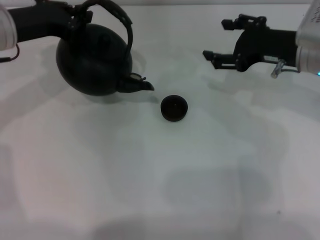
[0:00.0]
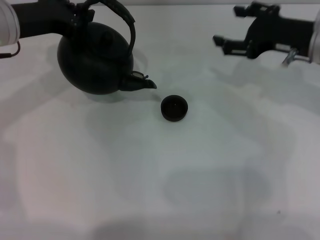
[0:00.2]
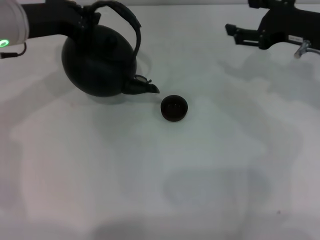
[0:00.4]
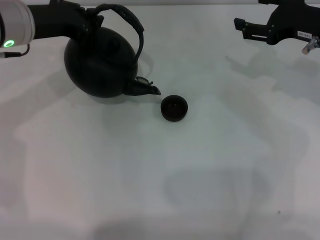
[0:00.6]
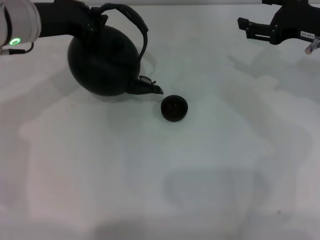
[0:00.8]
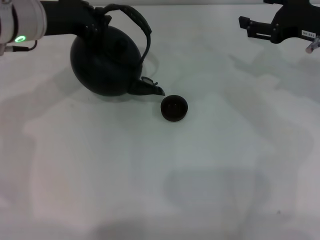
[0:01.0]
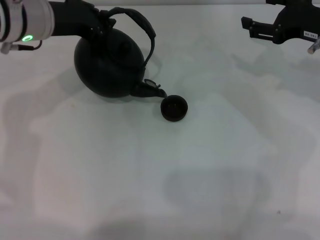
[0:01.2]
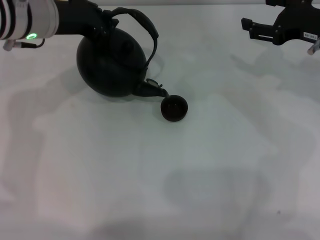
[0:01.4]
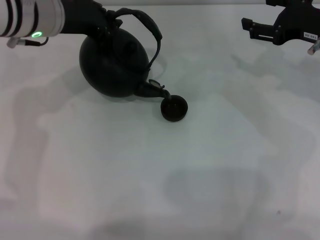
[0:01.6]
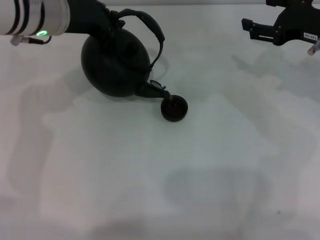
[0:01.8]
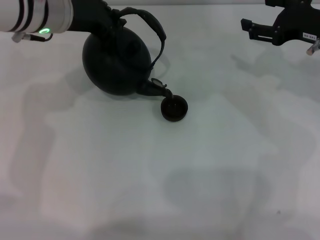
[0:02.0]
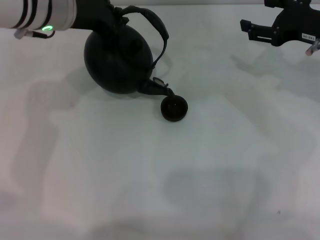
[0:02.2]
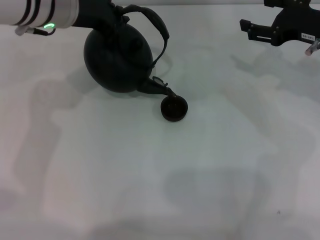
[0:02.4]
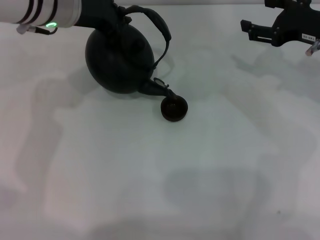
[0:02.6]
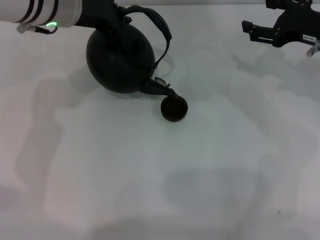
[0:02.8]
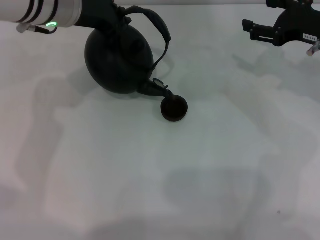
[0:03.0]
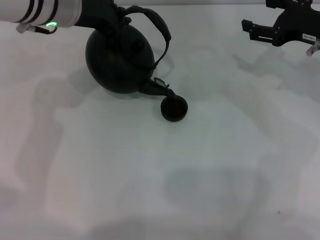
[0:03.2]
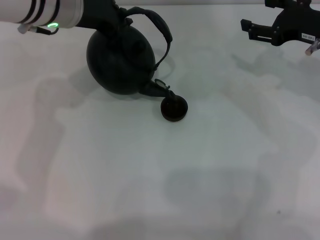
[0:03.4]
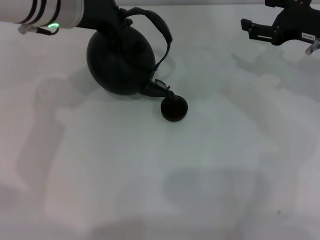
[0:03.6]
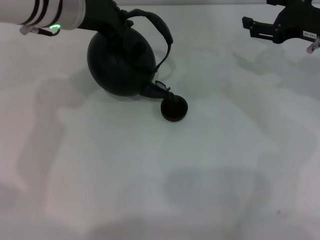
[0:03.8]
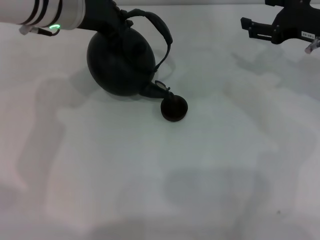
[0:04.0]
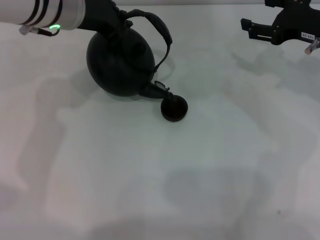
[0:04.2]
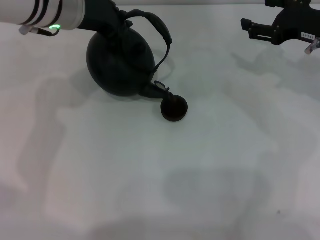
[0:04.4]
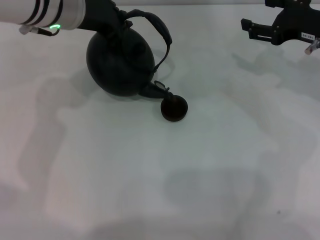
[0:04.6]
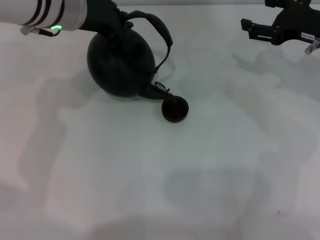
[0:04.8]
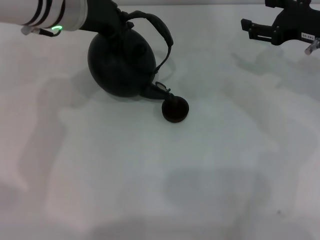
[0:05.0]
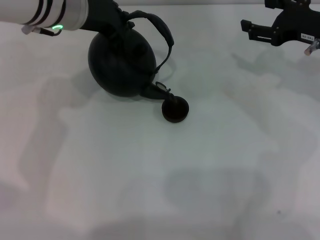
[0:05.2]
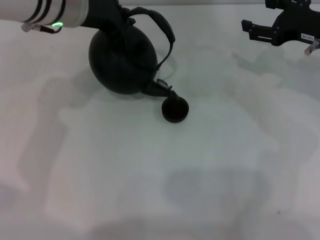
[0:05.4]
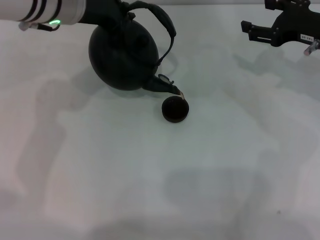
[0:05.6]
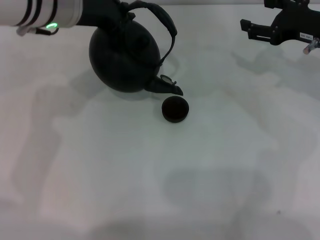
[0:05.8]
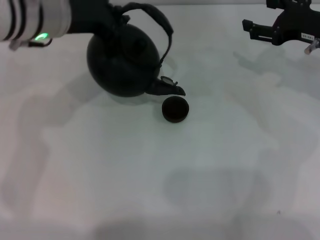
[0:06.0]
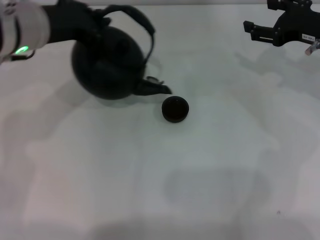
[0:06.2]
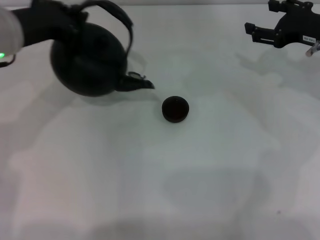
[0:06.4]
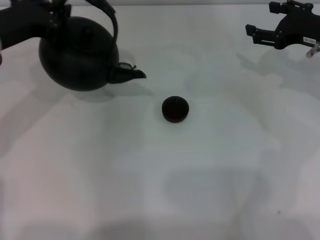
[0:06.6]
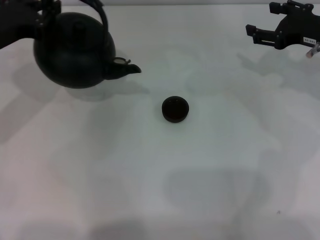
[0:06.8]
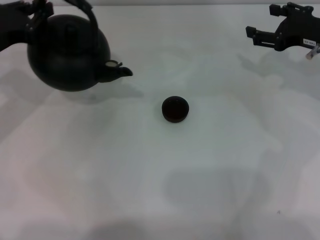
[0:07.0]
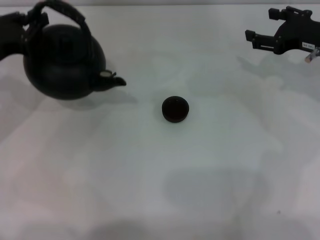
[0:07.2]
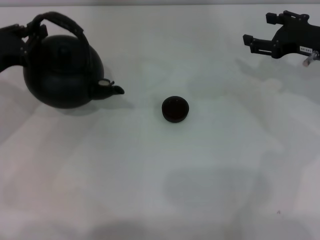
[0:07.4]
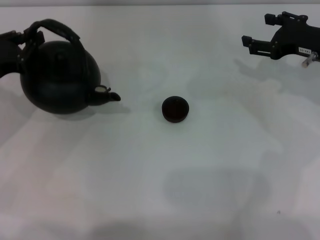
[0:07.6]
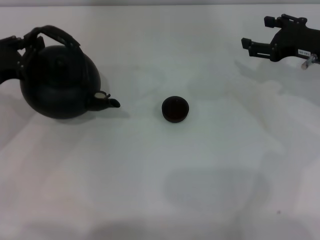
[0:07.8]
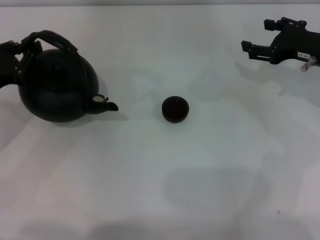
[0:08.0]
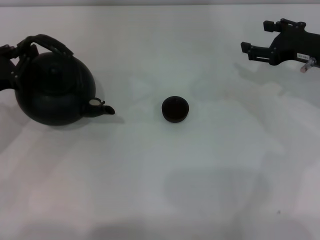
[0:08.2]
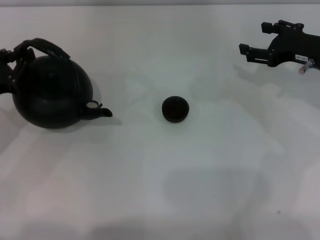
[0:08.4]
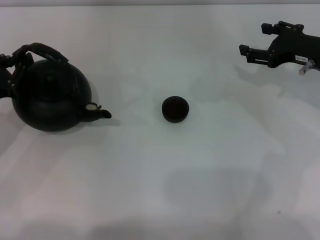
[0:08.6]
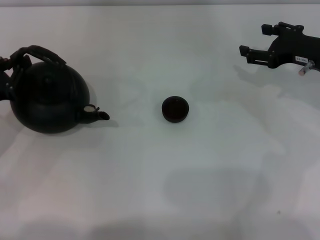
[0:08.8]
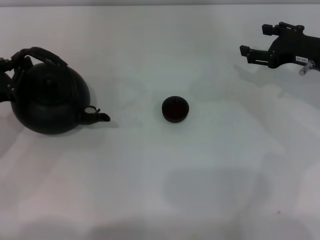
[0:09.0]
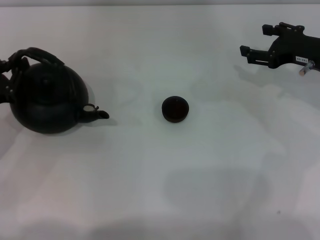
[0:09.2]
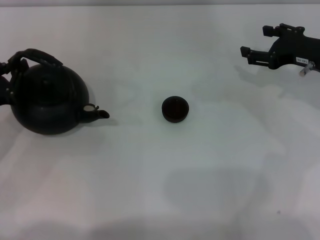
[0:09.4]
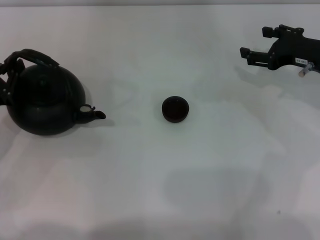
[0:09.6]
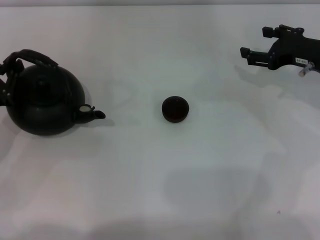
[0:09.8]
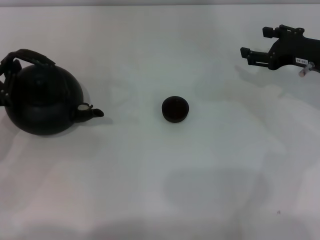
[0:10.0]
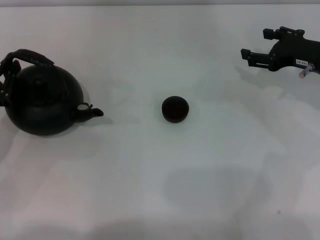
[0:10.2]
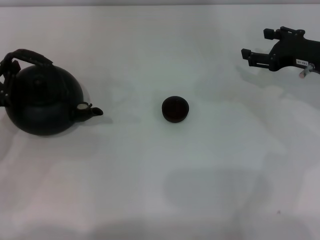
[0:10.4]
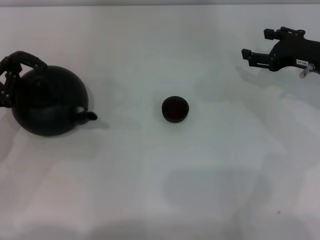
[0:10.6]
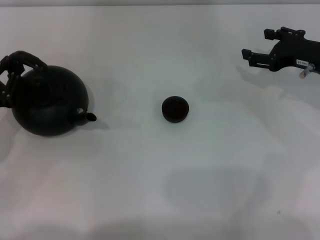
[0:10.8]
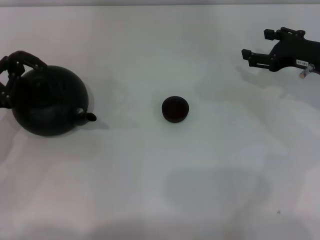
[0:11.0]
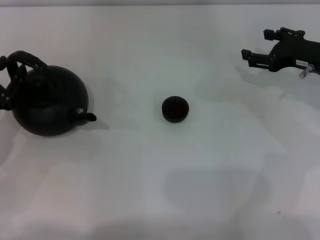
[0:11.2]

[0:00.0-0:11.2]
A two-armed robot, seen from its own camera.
Task of the whole recording: Grasp the handle of the teapot with one hand and pour tea into the teacup.
Step, 0:01.0 to 0:06.0: Pour tea into the teacup with the left gripper.
0:00.0 to 0:01.6: Both grippers travel together to the right, about 5 cm.
0:01.6 to 0:03.2: The grippers stay close to where they were, moving slightly.
0:03.2 to 0:04.8: Both grippers stay about where they are.
0:04.8 to 0:06.4: The left gripper is displaced to the left and backward by roughly 10 cm.
0:06.4 to 0:08.0: The left gripper shifts some 15 cm downward, to the left and backward.
0:08.0 to 0:09.6: The grippers make only small movements.
0:09.6 to 0:11.2: Neither gripper changes place.

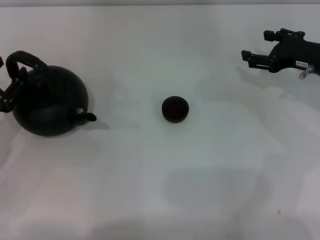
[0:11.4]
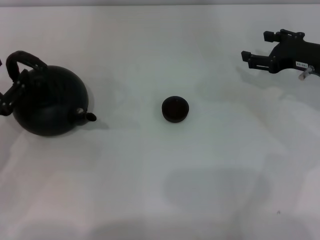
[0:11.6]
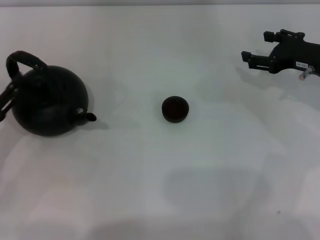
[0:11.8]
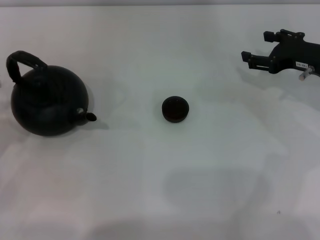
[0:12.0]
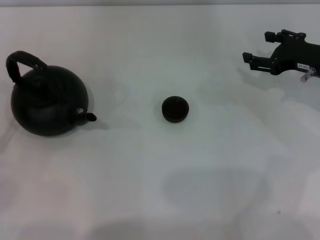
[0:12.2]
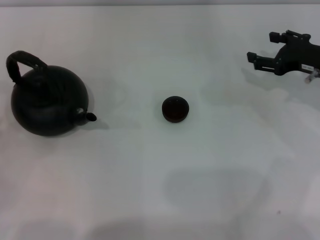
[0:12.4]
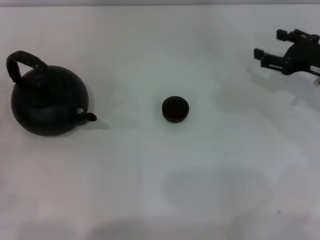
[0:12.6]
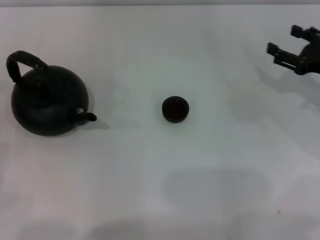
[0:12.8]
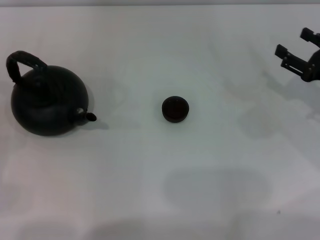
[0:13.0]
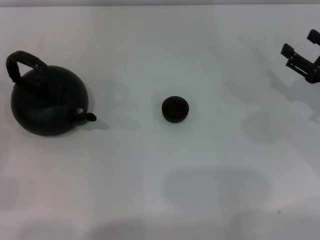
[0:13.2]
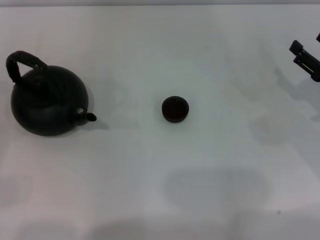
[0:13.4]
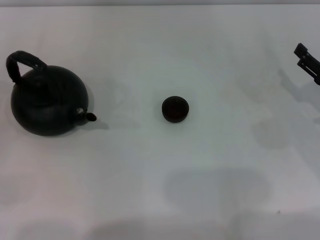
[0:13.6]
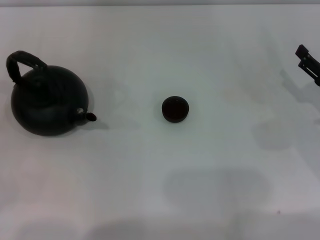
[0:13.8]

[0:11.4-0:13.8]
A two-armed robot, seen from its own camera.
Task of the whole recording: Grasp the handle of the teapot with one hand and pour tea into the teacup.
0:11.4 to 0:12.6: The left gripper shifts roughly 10 cm backward and to the left, and opens its fingers.
0:12.6 to 0:13.8: The right gripper shifts about 5 cm backward.

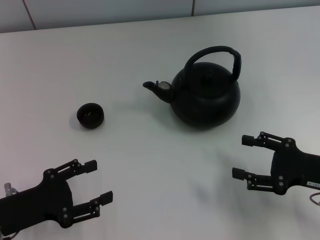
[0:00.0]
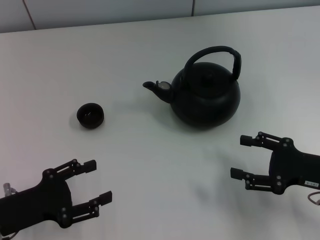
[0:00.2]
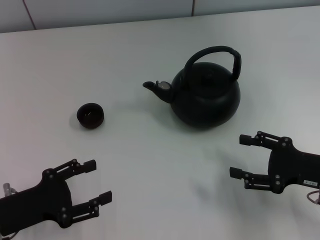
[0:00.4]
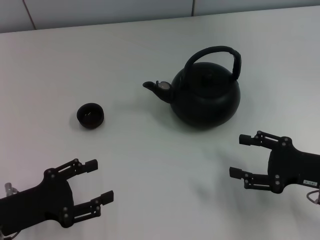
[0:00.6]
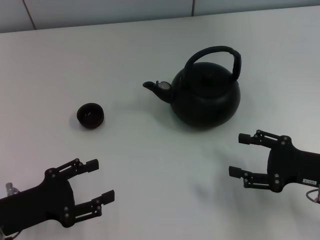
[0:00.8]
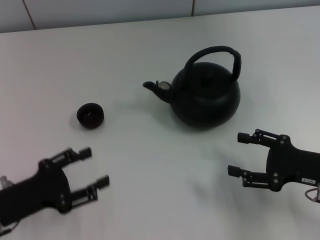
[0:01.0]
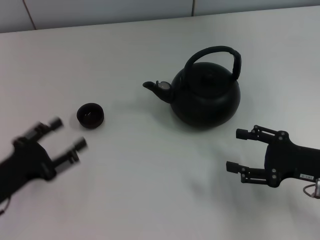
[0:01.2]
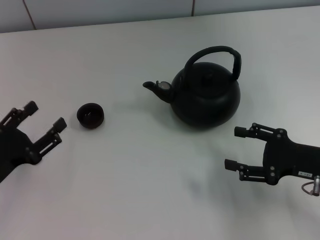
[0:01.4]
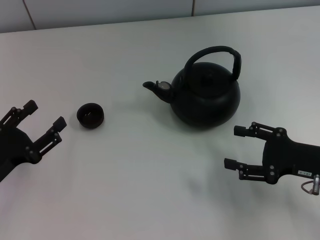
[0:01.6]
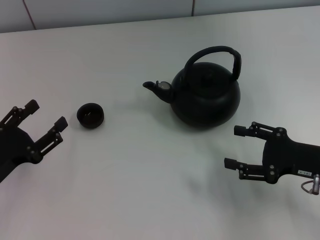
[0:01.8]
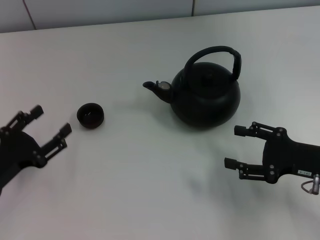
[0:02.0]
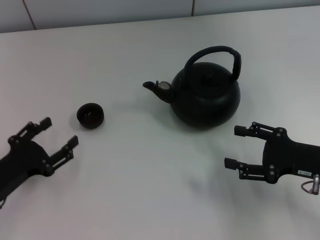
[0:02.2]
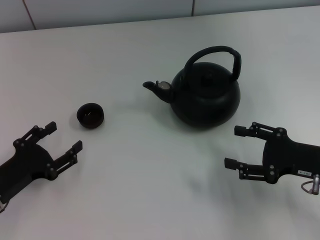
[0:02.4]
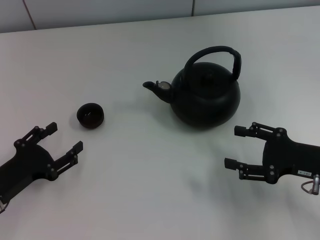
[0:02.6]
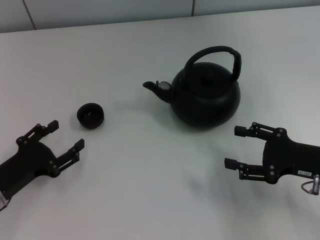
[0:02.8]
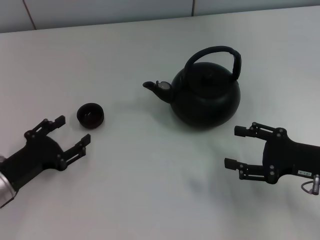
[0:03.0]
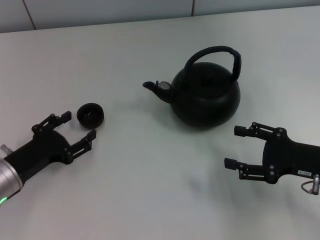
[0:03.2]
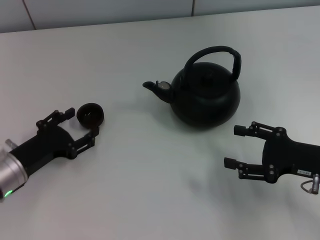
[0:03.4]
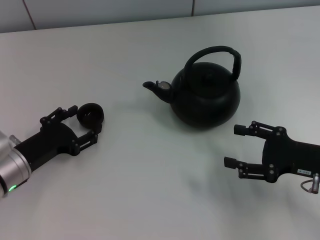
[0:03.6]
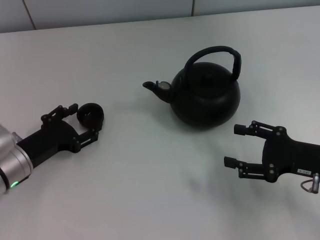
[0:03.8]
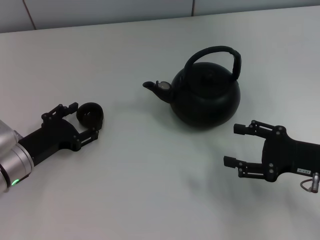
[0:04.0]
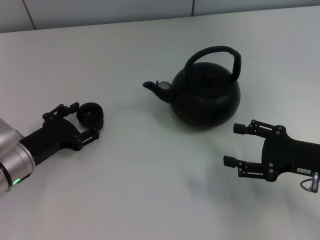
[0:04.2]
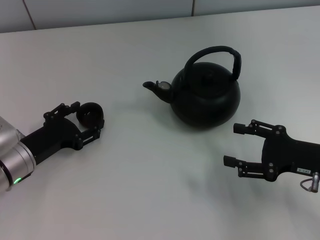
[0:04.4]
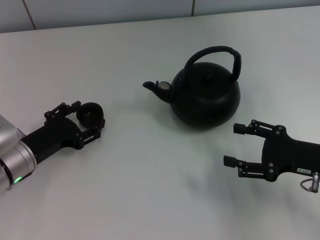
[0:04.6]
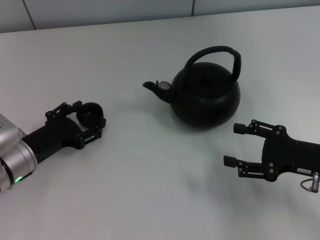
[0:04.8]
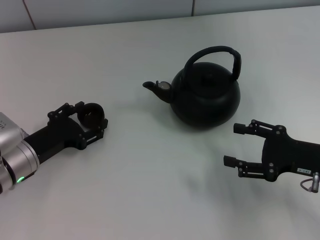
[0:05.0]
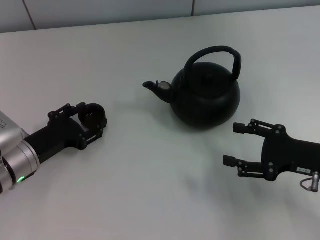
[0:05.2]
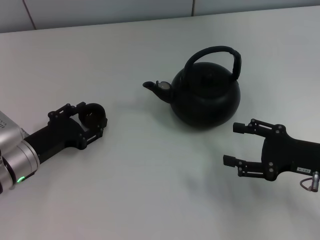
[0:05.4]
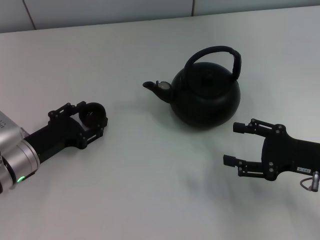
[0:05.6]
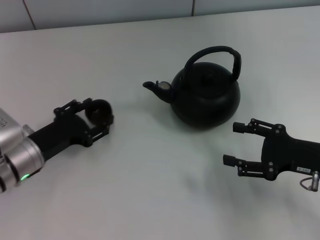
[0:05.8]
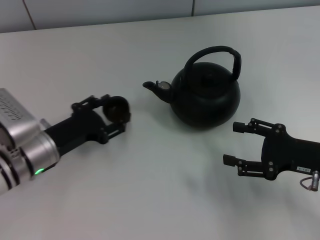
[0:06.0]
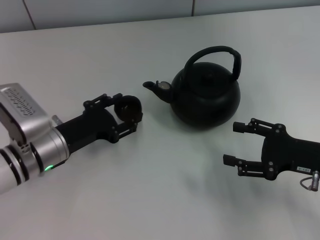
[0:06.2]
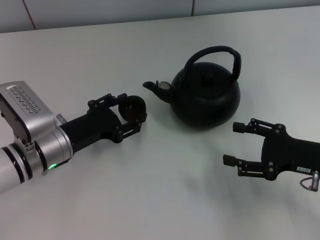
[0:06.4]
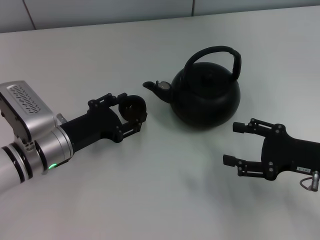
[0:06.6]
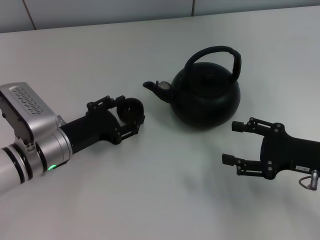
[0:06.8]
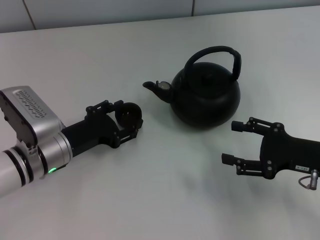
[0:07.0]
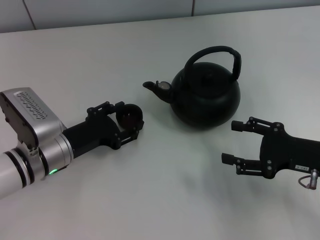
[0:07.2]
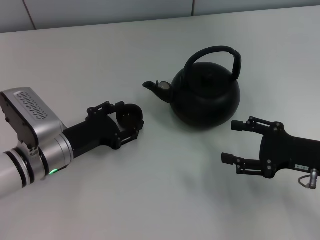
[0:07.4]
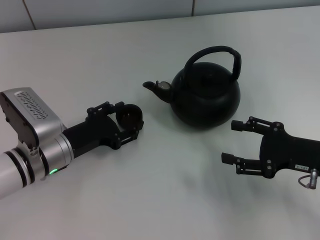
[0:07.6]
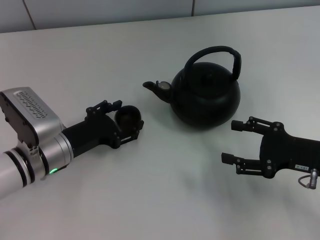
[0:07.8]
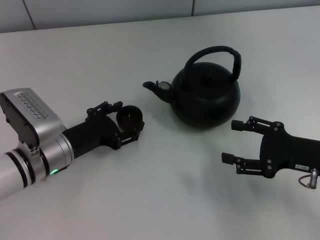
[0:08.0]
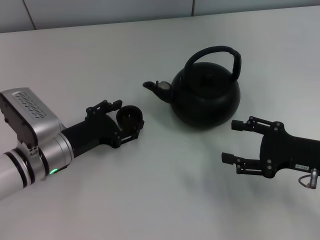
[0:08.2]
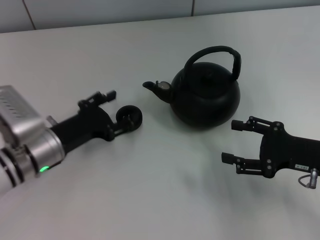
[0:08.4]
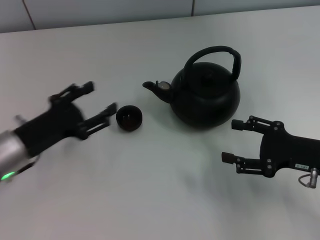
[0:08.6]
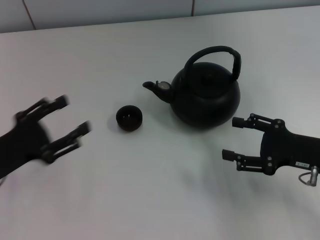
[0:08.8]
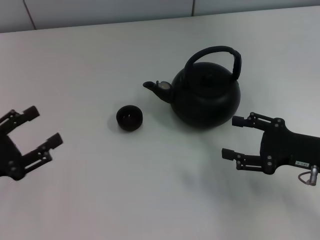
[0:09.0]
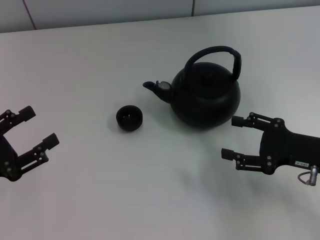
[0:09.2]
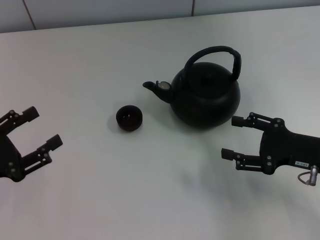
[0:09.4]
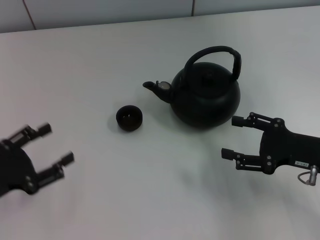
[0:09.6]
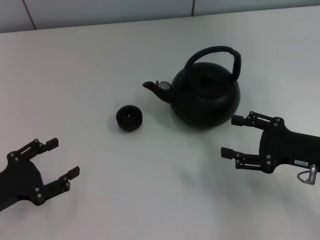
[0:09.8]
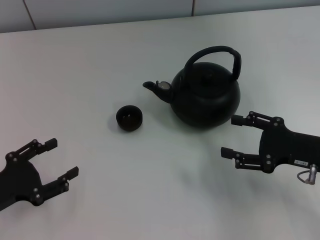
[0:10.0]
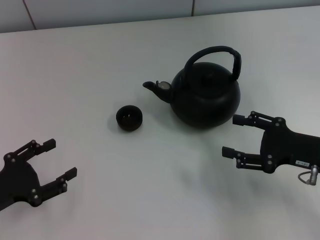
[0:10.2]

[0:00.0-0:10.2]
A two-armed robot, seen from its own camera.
Task of the whole recording: Grasp the handle of the teapot with one hand and pour tea into the teacup.
Step, 0:00.0 to 0:06.0: Pick up the teacup with the left gripper.
Step, 0:06.2 to 0:08.8: Place the teacup in the center of view with the left gripper.
0:01.4 to 0:03.0: The grippers make only small movements.
0:03.0 to 0:04.4: The left gripper shifts by some 5 cm.
0:04.4 to 0:07.2: The grippers stay close to where they were, moving slightly.
0:07.2 to 0:08.8: The left gripper travels to the left and backward by about 10 cm.
0:08.8 to 0:10.2: The grippers stay close to where they were, moving slightly.
